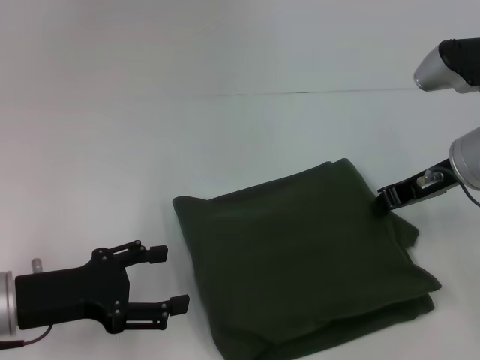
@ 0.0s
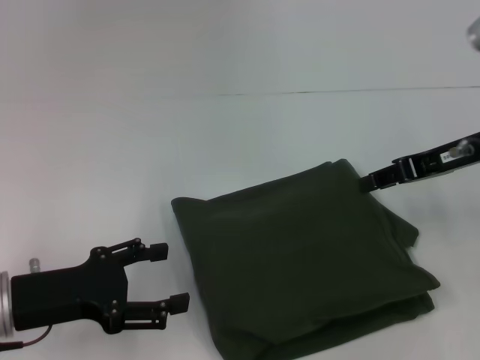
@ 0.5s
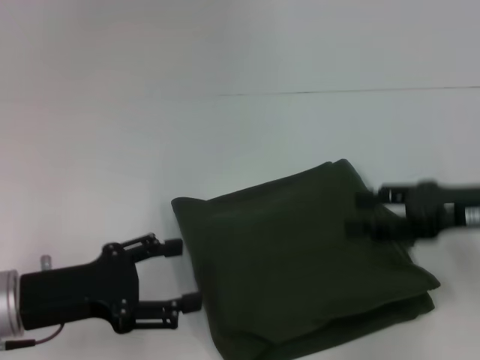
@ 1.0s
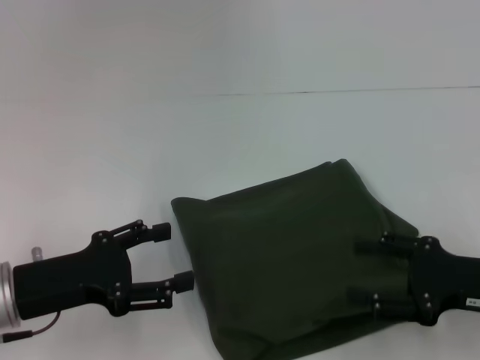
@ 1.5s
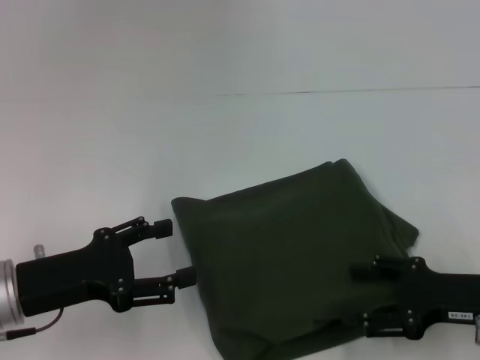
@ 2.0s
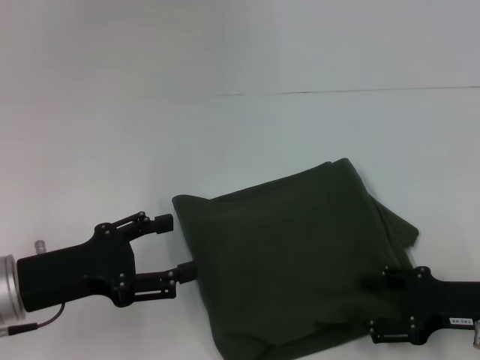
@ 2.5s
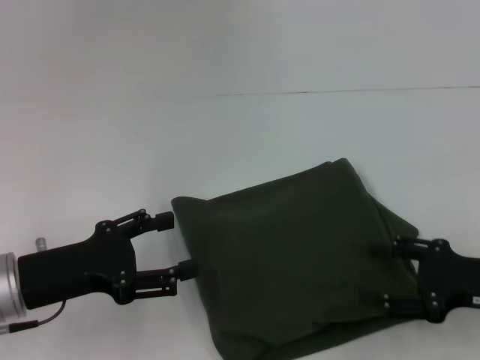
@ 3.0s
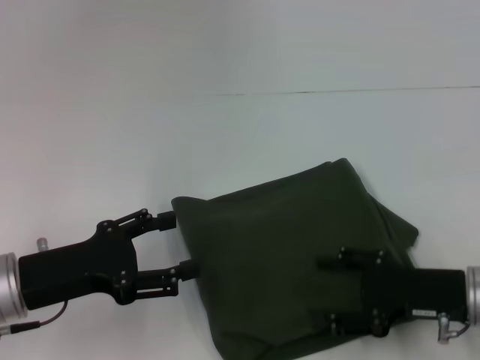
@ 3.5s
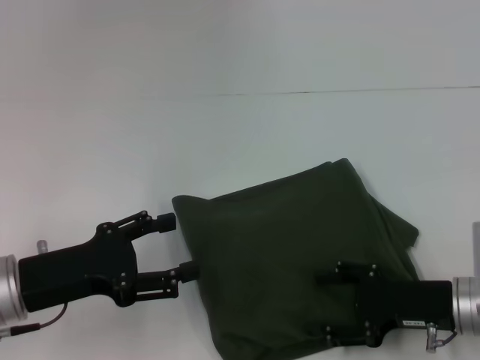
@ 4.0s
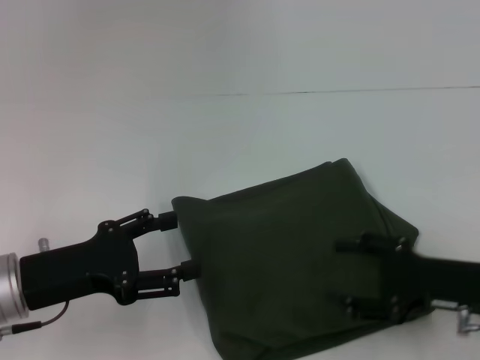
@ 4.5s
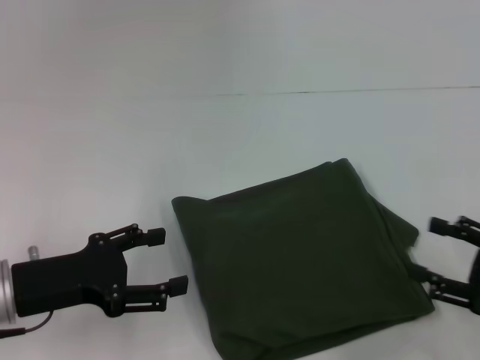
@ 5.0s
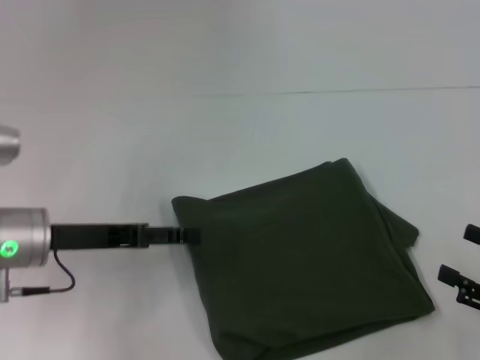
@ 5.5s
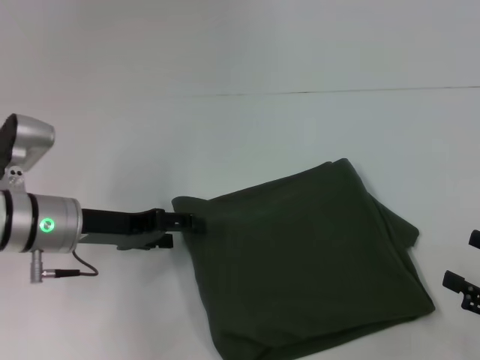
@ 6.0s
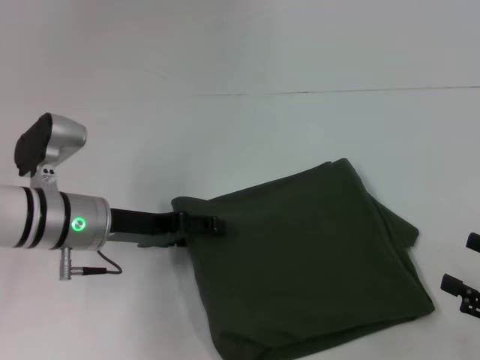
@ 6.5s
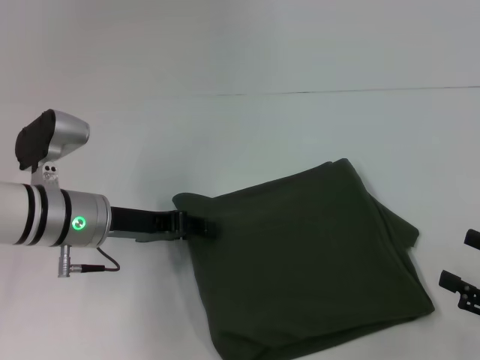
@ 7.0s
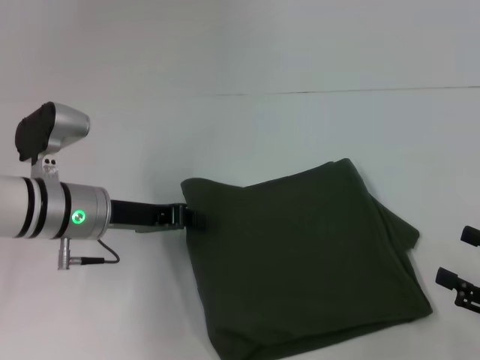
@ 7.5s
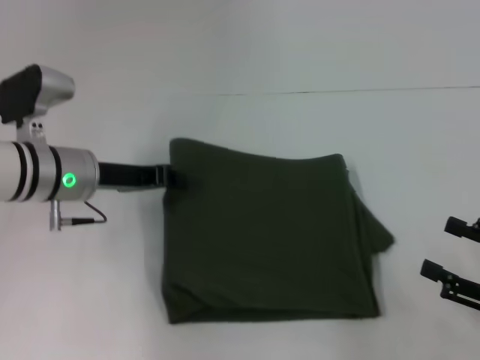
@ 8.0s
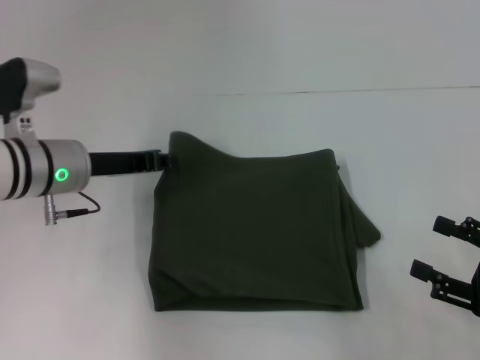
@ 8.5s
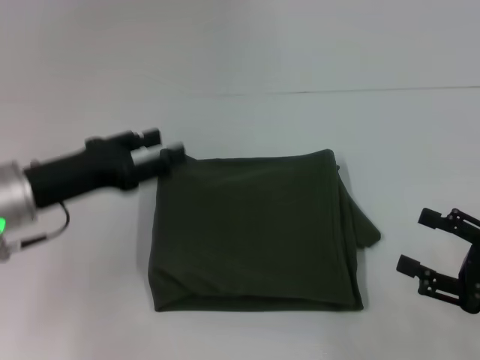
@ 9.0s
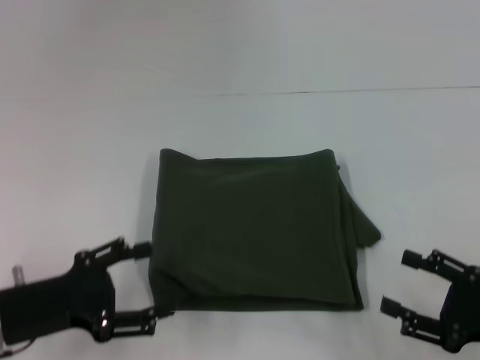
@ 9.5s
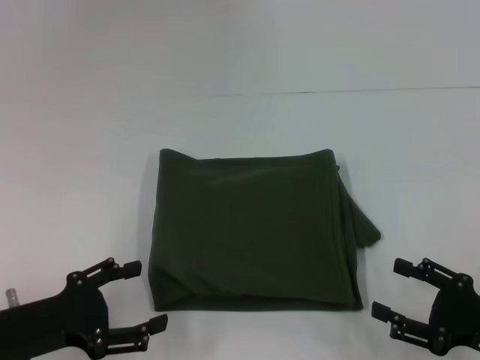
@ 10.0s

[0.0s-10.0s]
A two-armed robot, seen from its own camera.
0.0s to 2.0s: The right gripper travels backward, downward and to the right by roughly 15 cm, and opens its fingers.
2.0s to 4.0s: The grippers move only a little.
4.0s to 6.0s: The right gripper goes about 15 cm to the right and backward, while the left gripper is displaced forward by some 10 cm.
6.0s to 8.0s: The left gripper closes up.
8.0s to 10.0s: The right gripper shifts by some 5 cm; the left gripper is displaced backward and to the left by approximately 20 cm, and opens.

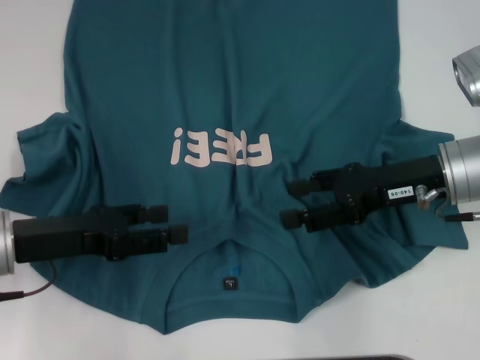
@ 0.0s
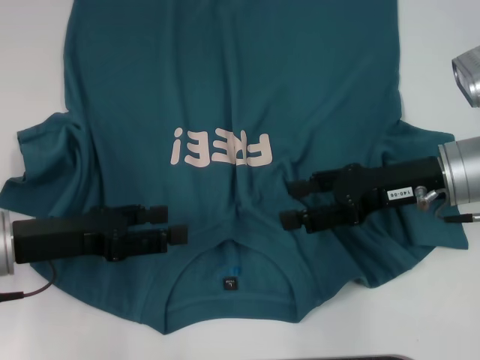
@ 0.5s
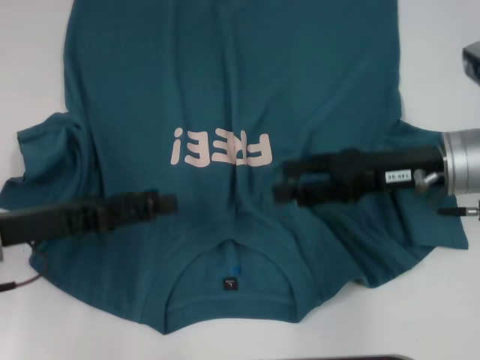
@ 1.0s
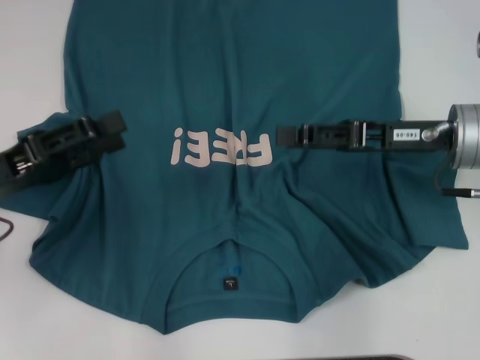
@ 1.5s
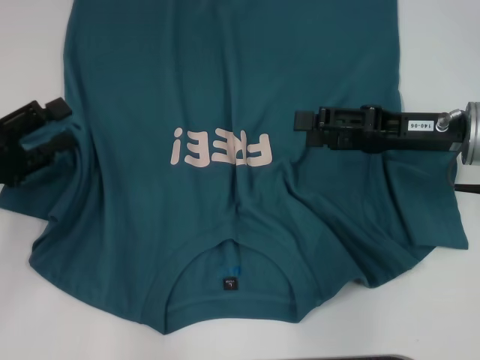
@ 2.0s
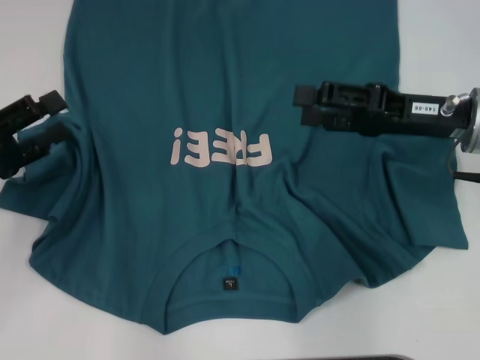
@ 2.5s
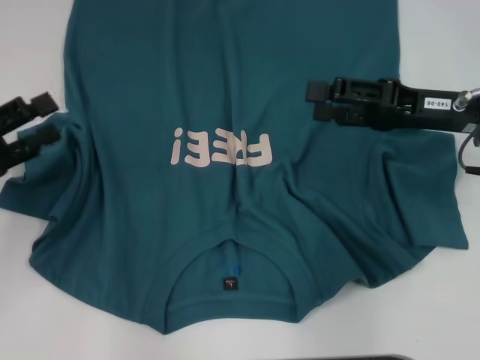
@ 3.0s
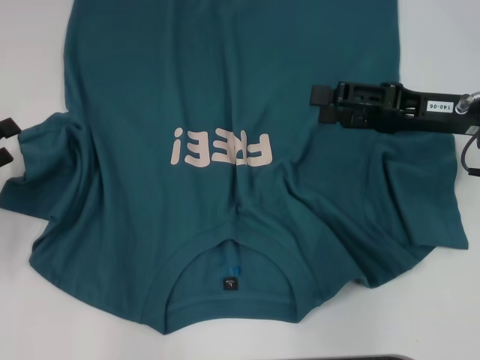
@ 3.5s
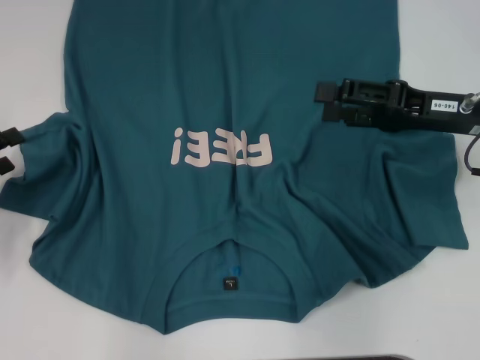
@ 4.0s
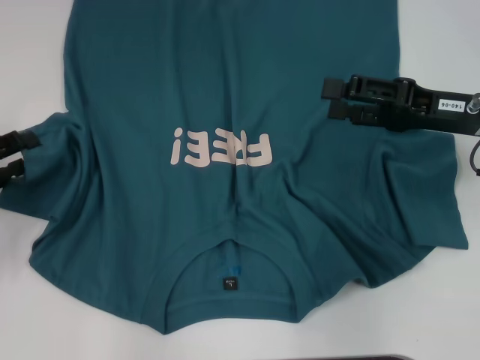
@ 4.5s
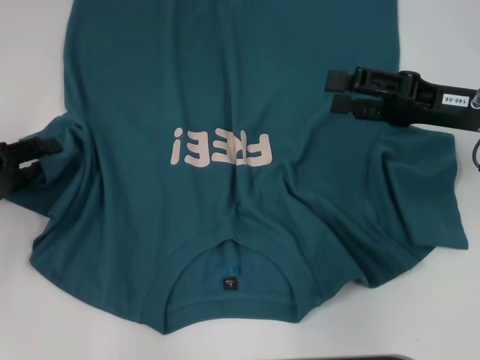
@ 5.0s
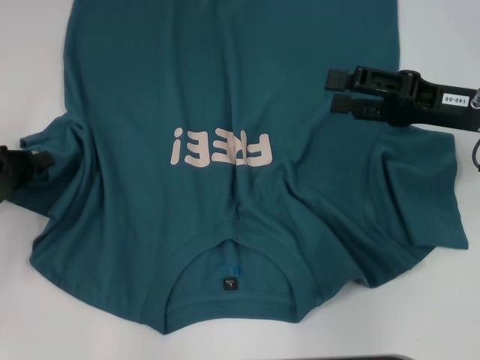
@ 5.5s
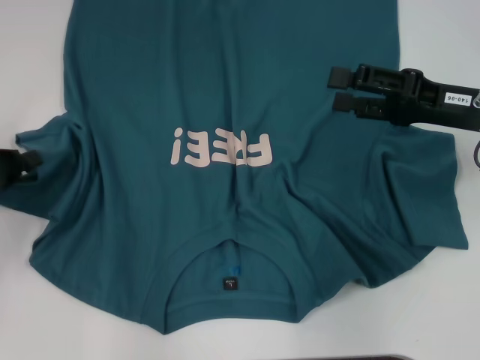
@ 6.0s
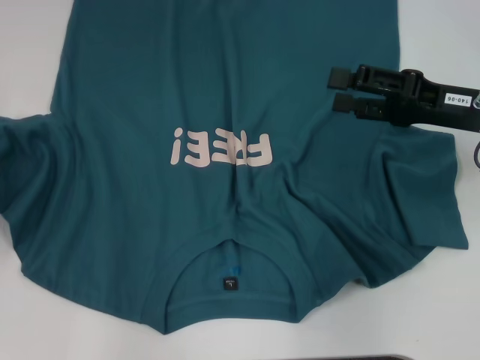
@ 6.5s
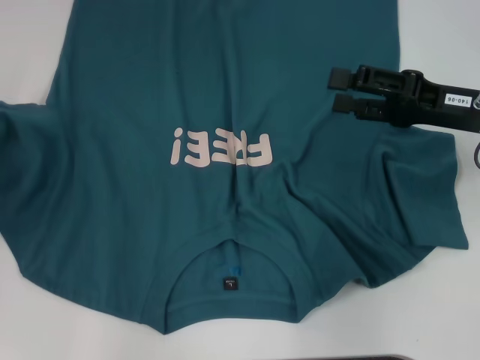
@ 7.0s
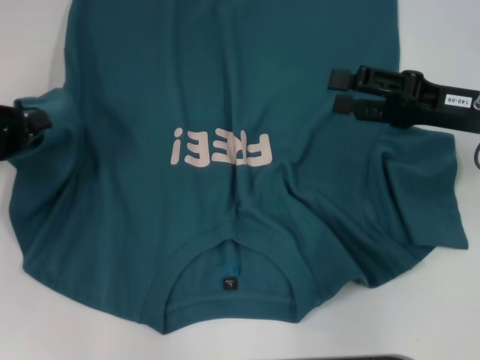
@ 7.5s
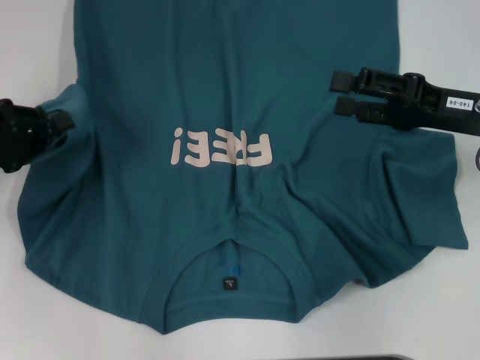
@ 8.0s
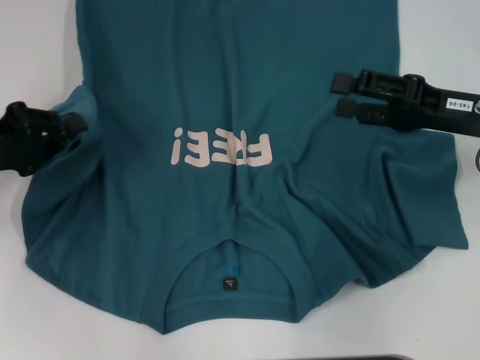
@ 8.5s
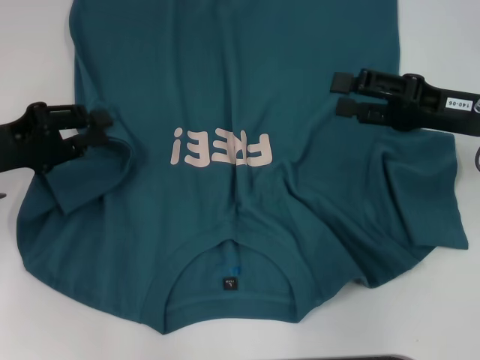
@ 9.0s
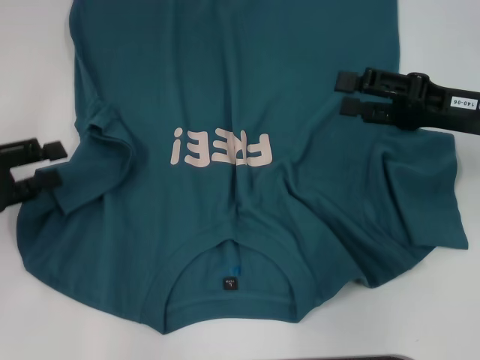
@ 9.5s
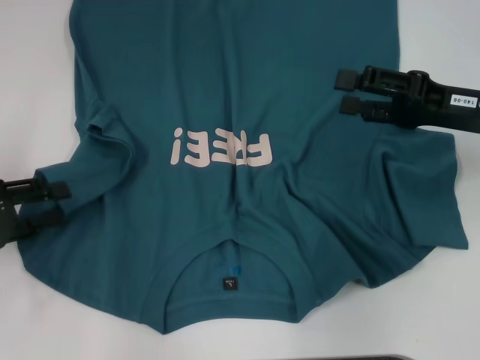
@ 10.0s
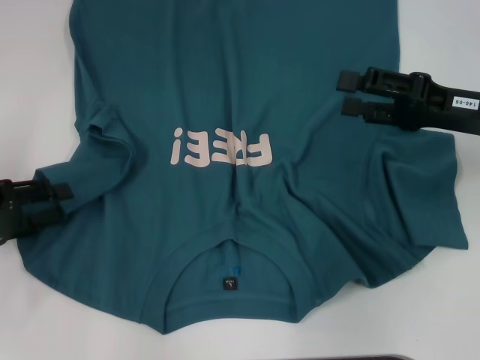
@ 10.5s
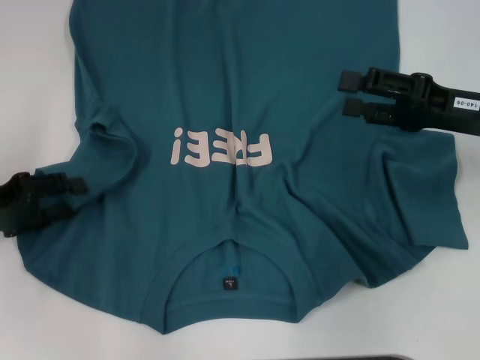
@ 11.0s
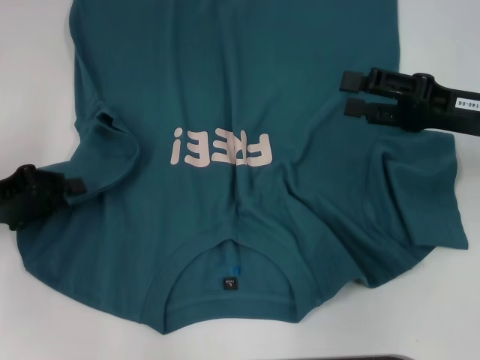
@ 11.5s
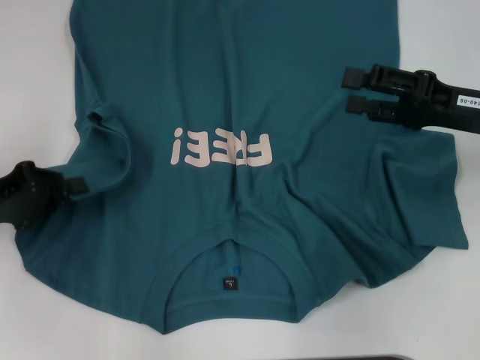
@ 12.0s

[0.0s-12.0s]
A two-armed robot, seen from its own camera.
0.0s to 2.0s: The left gripper goes about 5 cm to the left.
2.0s to 4.0s: The left gripper moves some 5 cm.
4.0s to 6.0s: The left gripper closes its fingers.
6.0s to 8.0s: The left gripper ends up approximately 5 cm from where it was.
8.0s to 10.0s: The left gripper shifts by roughly 5 cm, and opens its fingers.
10.0s to 12.0s: The left gripper closes its fingers.

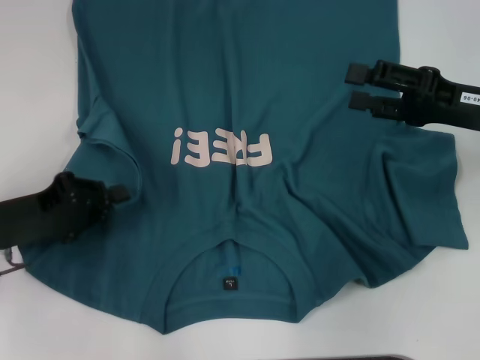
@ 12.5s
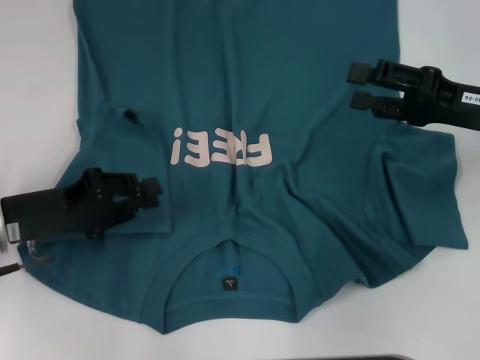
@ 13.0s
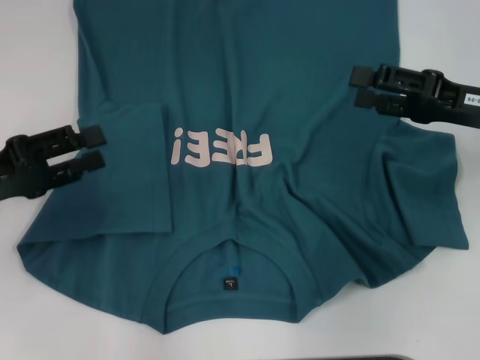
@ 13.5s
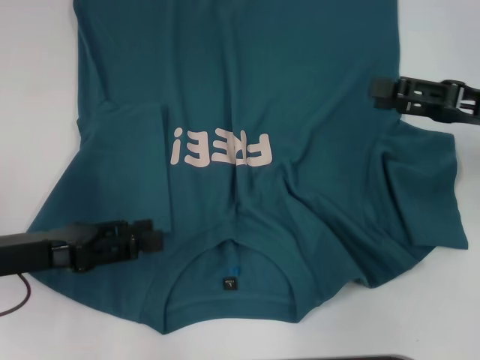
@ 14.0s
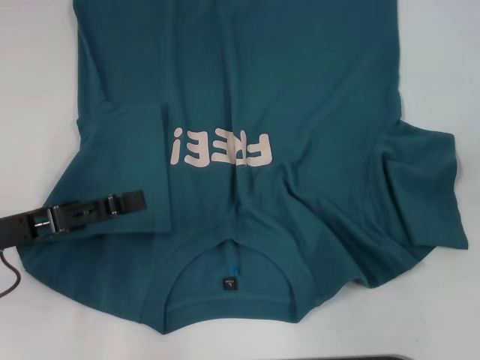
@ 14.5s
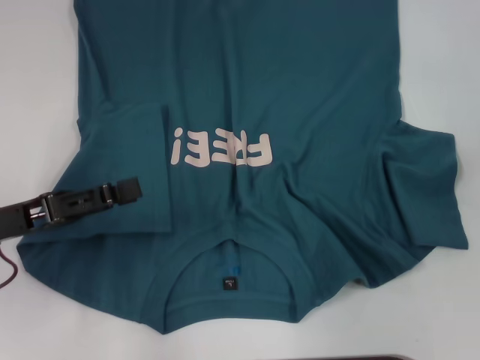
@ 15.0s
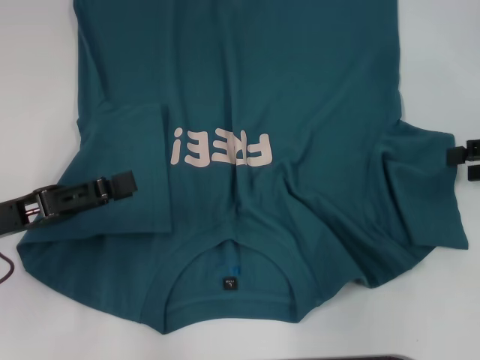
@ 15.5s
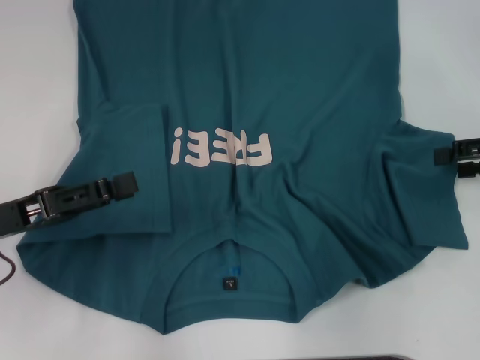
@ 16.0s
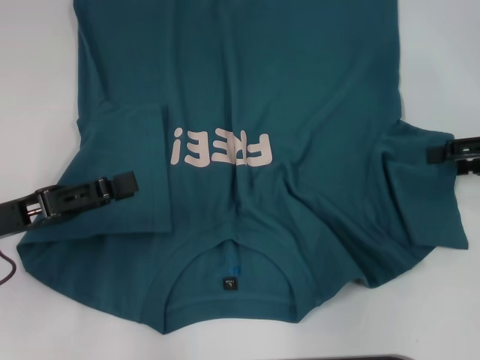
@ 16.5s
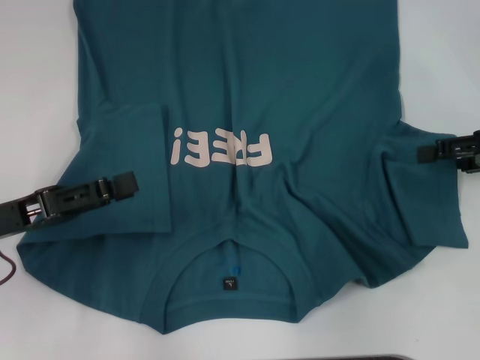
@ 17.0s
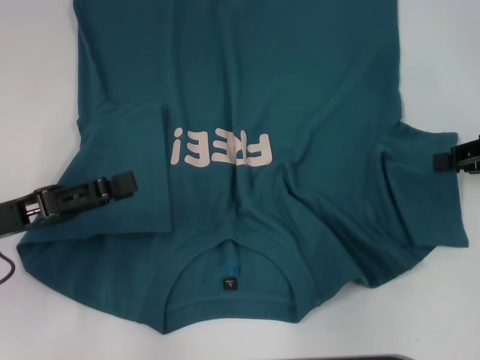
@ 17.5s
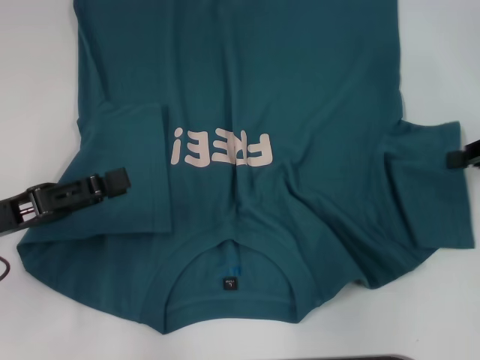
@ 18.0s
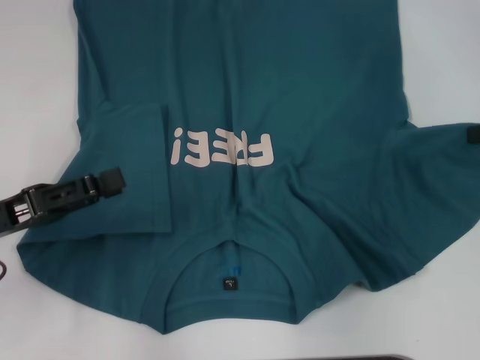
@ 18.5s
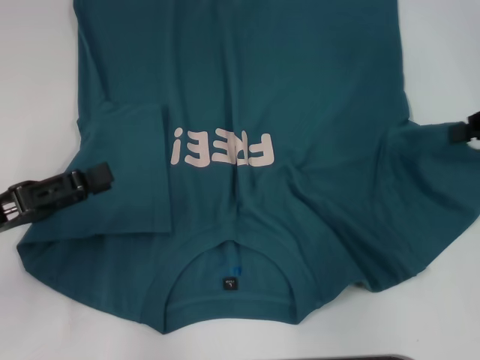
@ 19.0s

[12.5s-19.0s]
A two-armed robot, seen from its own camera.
12.5s to 14.5s: The right gripper is displaced to the right by roughly 15 cm. Meanwhile the left gripper opens up.
14.5s to 17.0s: The right gripper is displaced to the left by about 5 cm.
17.0s to 19.0s: The right gripper changes place by approximately 5 cm, and closes up.
